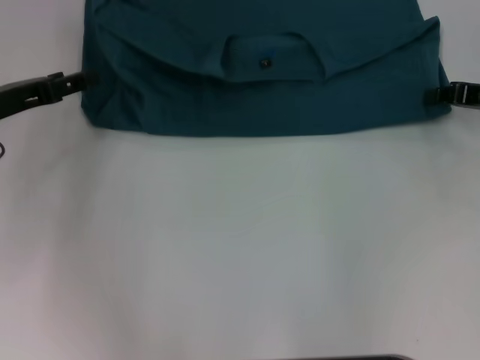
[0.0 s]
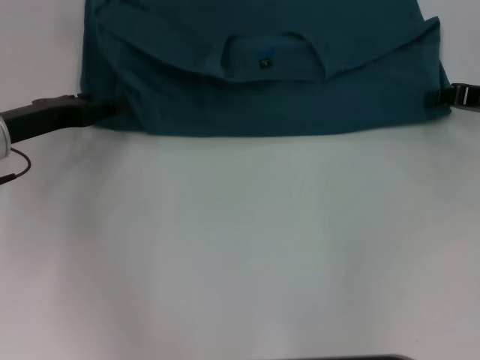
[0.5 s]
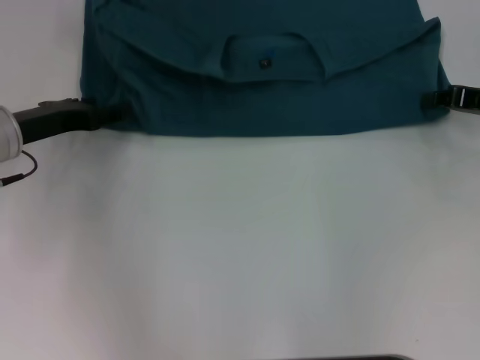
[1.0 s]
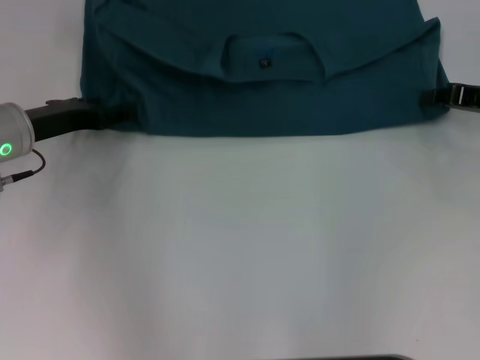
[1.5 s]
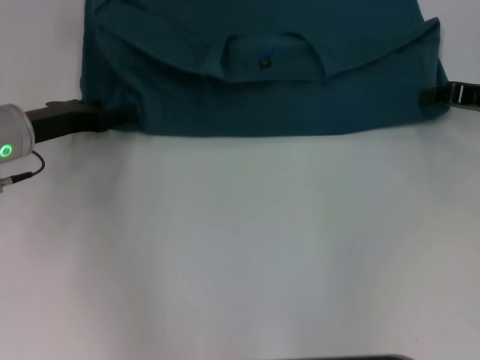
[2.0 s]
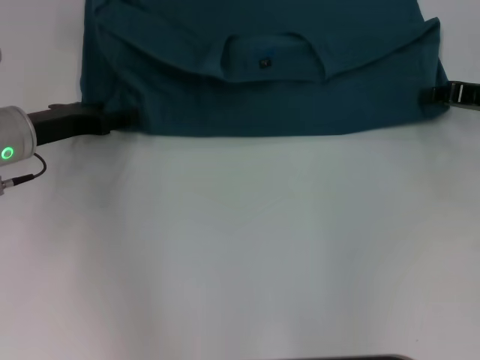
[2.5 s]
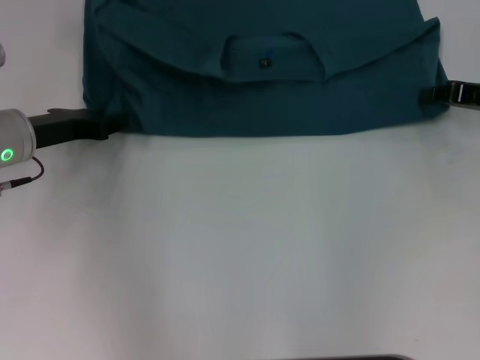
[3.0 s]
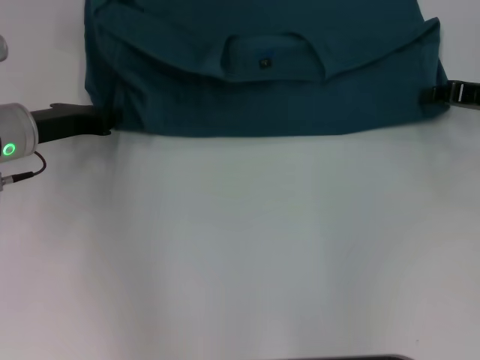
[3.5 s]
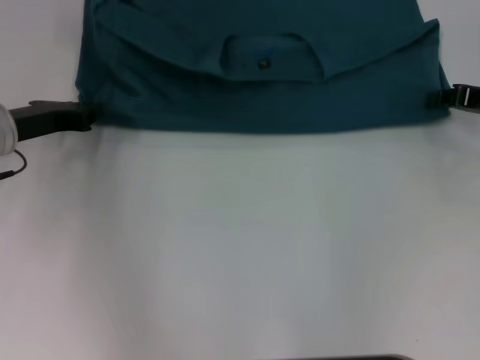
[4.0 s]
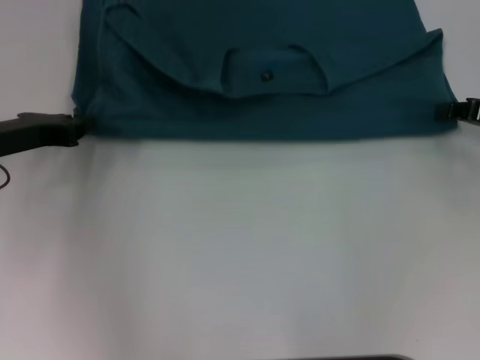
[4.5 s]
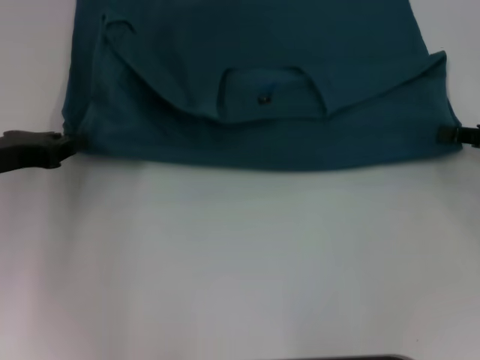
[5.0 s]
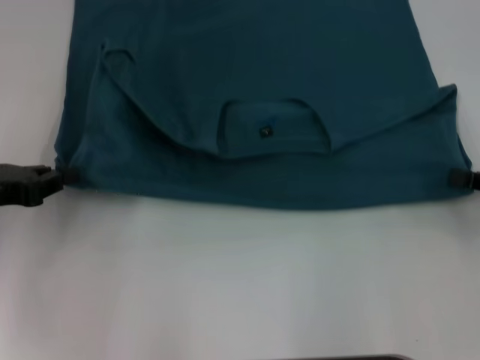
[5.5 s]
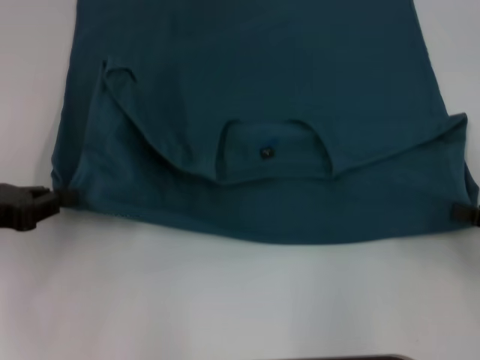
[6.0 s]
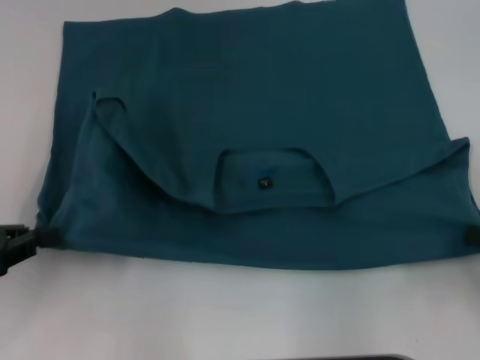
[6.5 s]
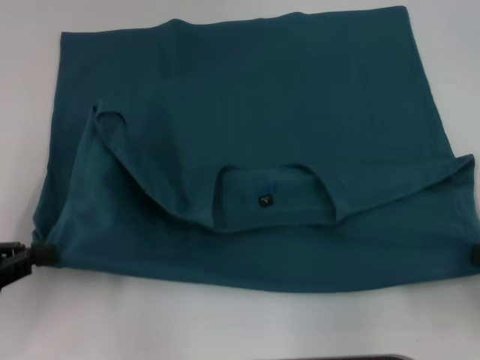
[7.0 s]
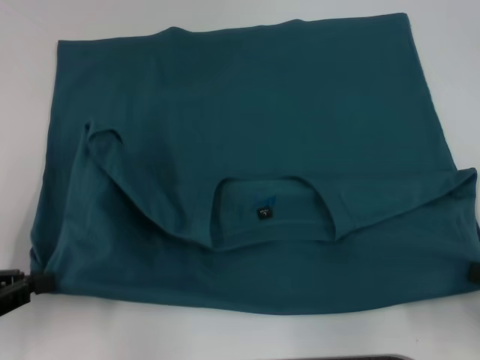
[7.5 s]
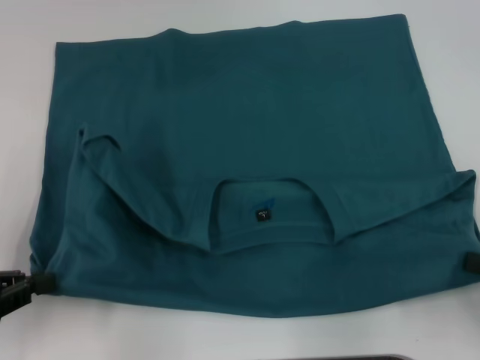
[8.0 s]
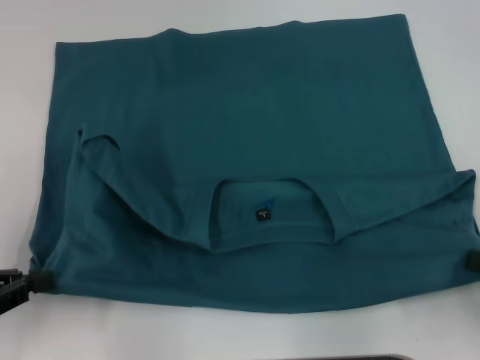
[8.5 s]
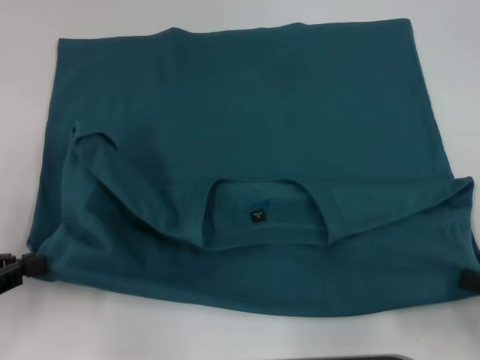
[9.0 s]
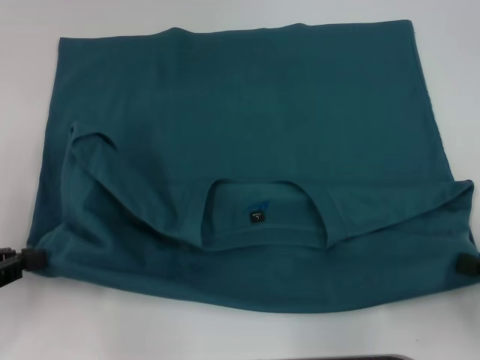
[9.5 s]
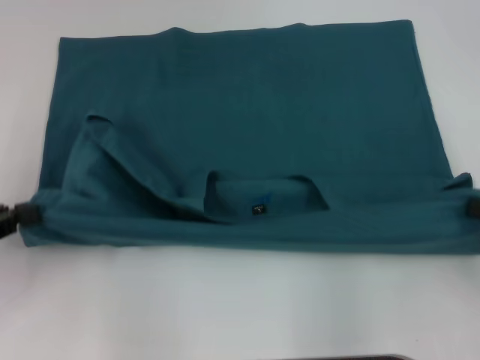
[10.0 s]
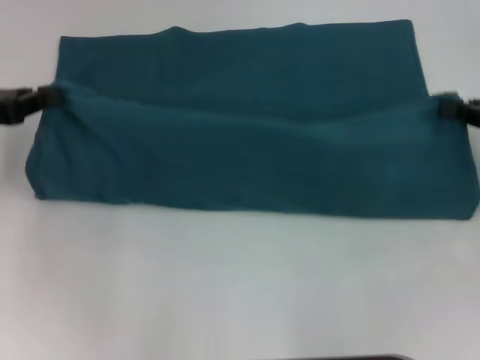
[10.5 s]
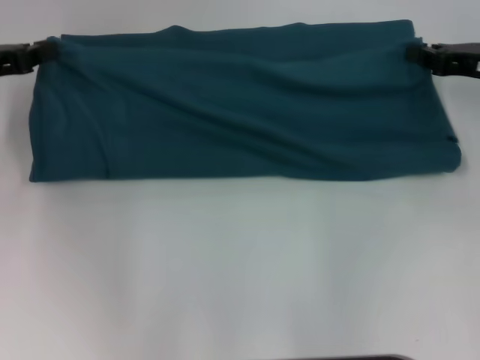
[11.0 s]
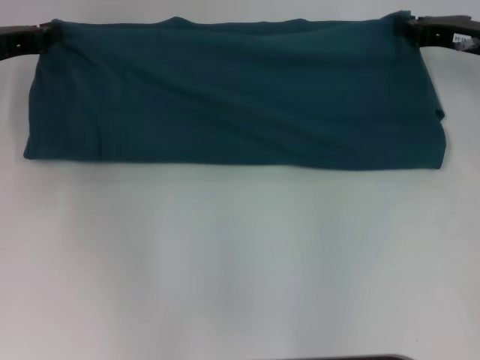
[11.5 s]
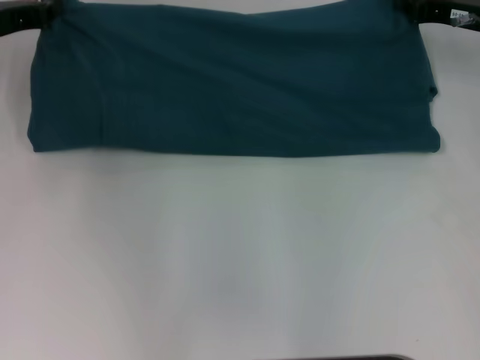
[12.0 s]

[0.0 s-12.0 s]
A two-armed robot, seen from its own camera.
Step, 0.0 to 8.5 s: Pull the clothes with your left hand.
Step, 0.0 to 8.5 s: Pull the clothes with your right hand.
0.0 to 2.0 s: The left gripper moves about 5 cm.
2.0 to 4.0 s: The left gripper closes.
4.0 to 6.0 s: The right gripper goes roughly 15 cm backward; the left gripper moves backward and to the left, roughly 10 cm.
6.0 to 8.0 s: The two grippers go approximately 5 cm backward.
10.0 to 12.0 s: Both grippers move forward, about 20 cm.

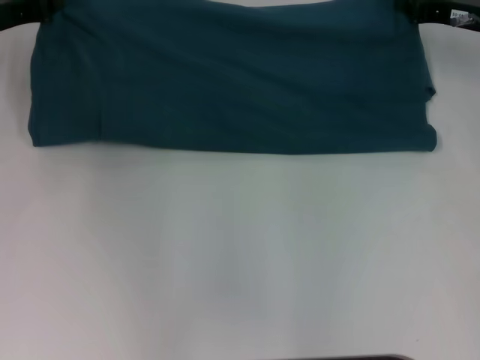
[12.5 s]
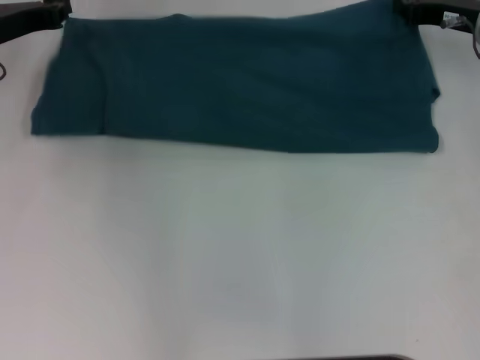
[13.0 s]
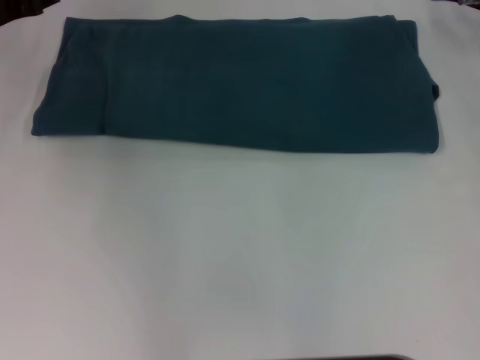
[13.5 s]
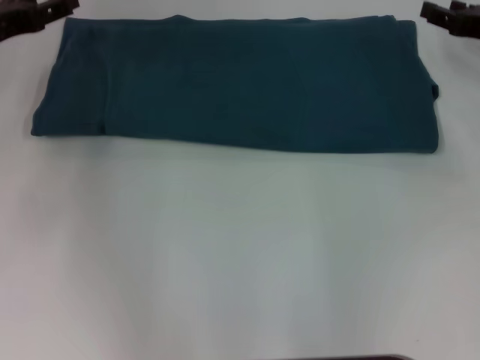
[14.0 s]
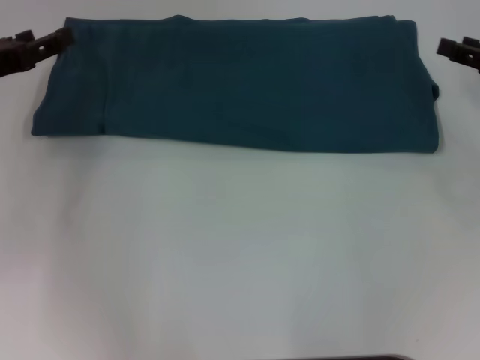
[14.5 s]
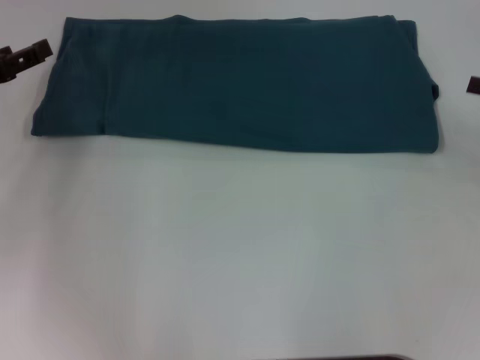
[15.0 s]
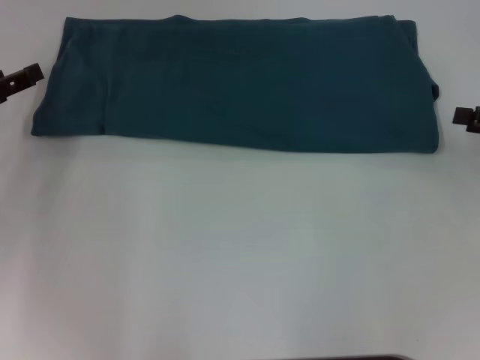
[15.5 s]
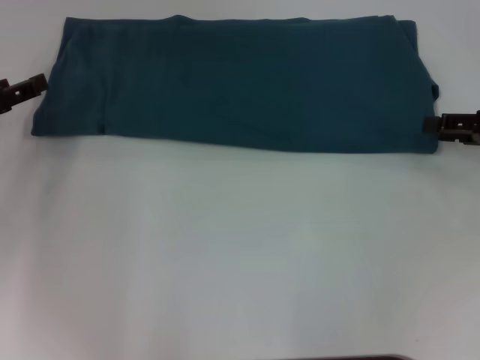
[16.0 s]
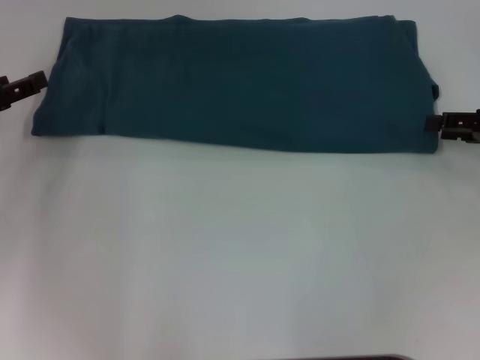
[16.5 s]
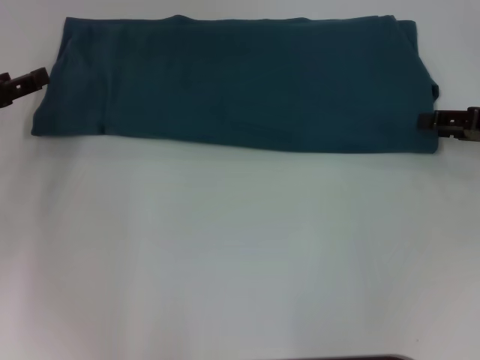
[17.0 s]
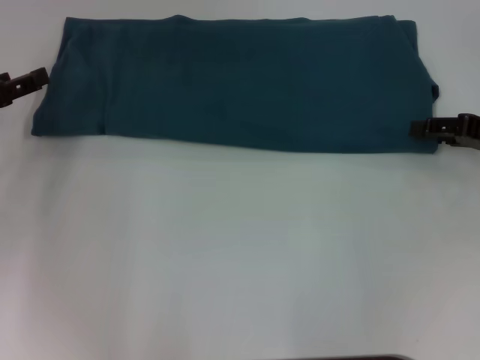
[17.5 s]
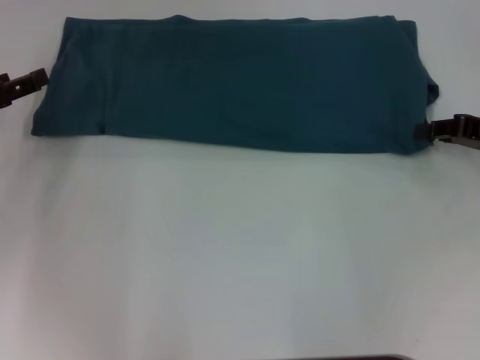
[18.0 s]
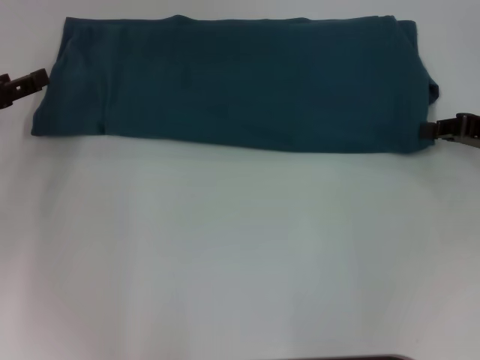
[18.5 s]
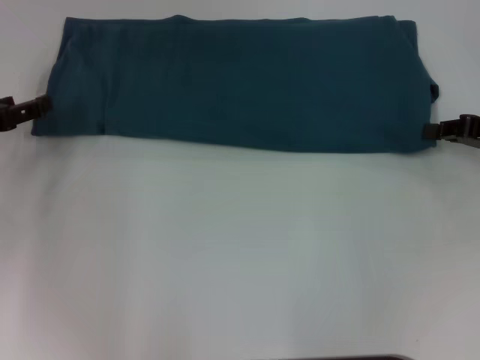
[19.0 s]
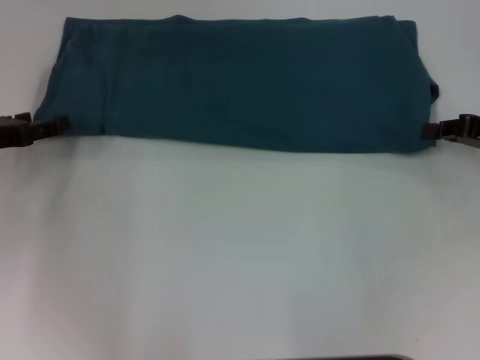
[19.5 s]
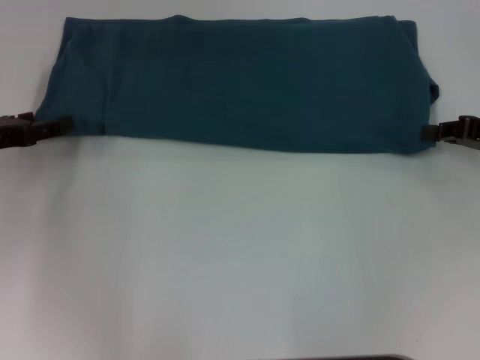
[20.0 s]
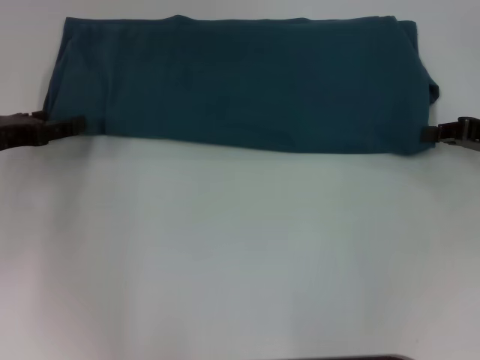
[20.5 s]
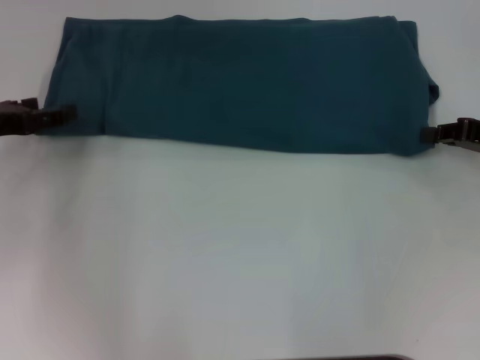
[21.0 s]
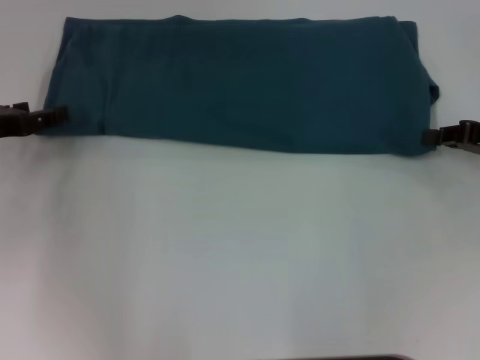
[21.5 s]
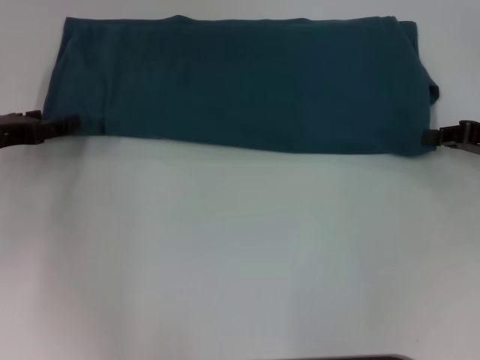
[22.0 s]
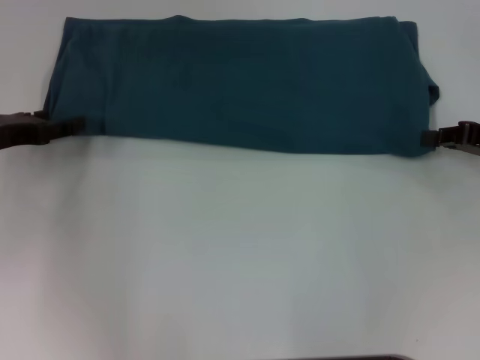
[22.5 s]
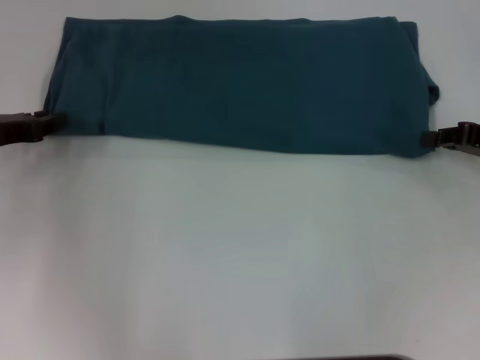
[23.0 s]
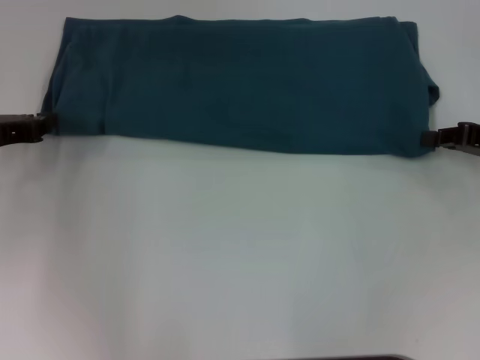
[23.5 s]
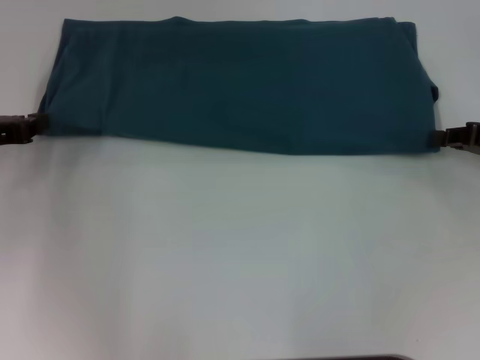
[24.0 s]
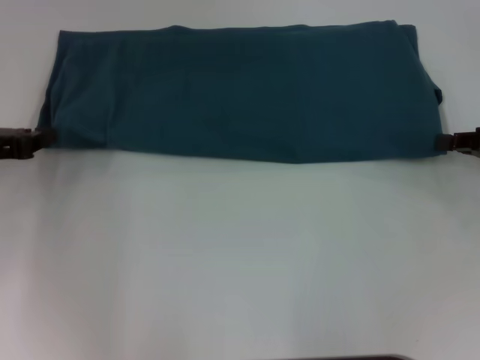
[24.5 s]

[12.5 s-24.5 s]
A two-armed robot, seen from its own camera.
12.5 to 14.5 s: The right gripper is displaced backward and to the right by some 10 cm, and opens up. Meanwhile the left gripper is displaced backward by about 5 cm, and opens up.
18.5 to 20.5 s: The grippers move only a little.
22.5 to 24.5 s: The left gripper closes up.

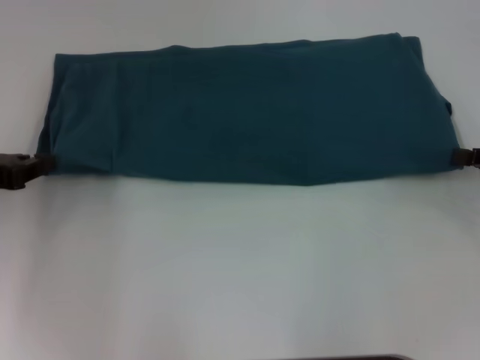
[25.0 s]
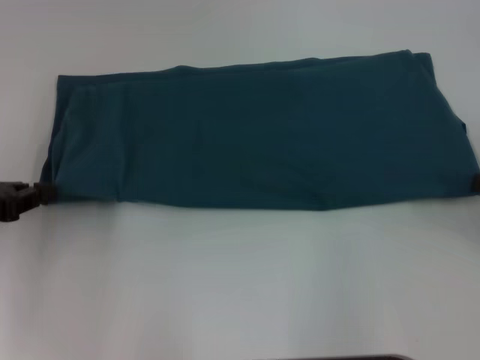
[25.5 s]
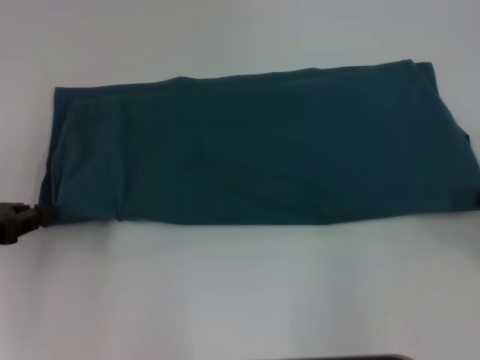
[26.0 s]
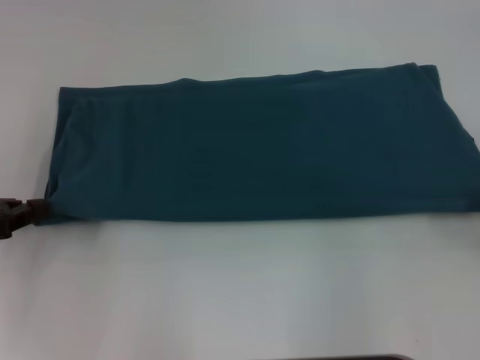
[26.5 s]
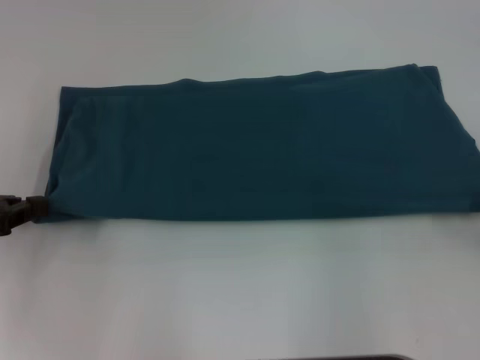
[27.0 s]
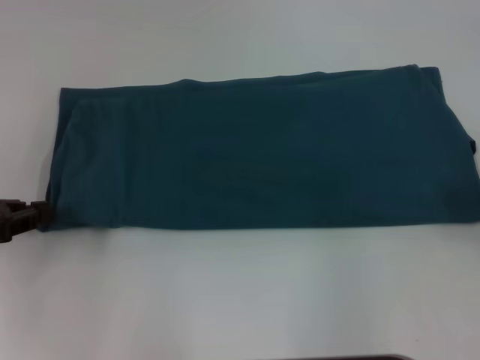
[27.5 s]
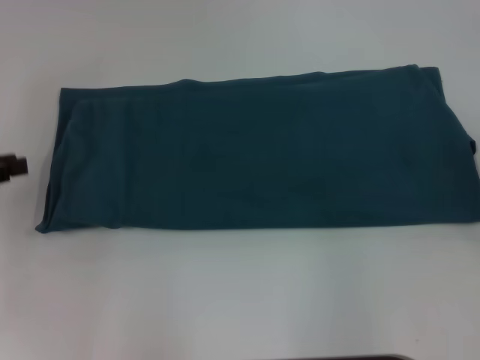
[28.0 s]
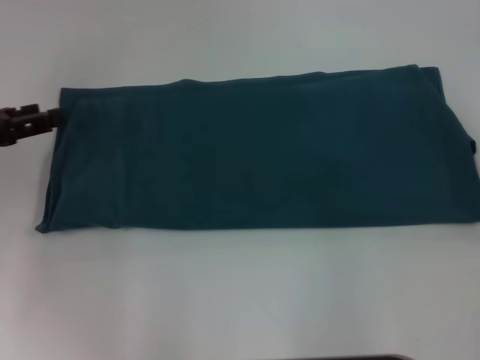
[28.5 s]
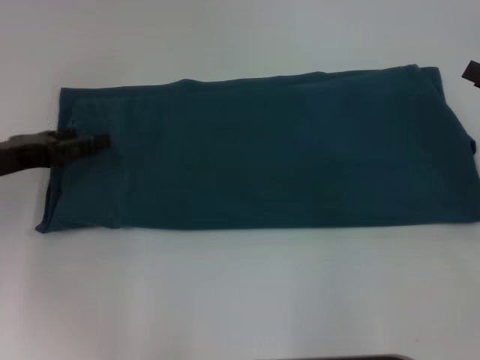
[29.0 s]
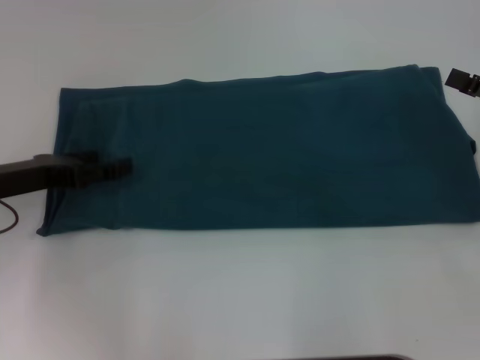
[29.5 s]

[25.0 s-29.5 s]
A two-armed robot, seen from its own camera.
Step, 25.0 to 27.5 s: Pull the clothes with your left hand.
Step, 25.0 to 27.5 s: Pull the clothes with your right hand.
25.0 to 27.0 s: The right gripper is displaced backward by about 5 cm.
27.0 to 29.5 s: The left gripper travels to the right by approximately 5 cm, and opens up. The right gripper shifts some 10 cm forward, and opens its fingers.
